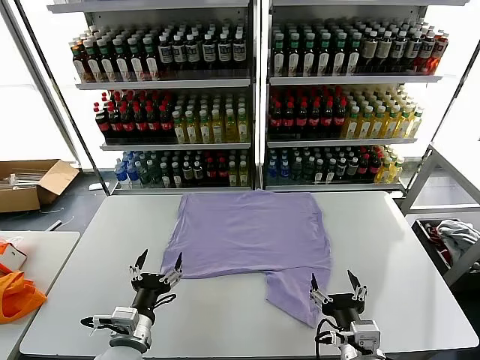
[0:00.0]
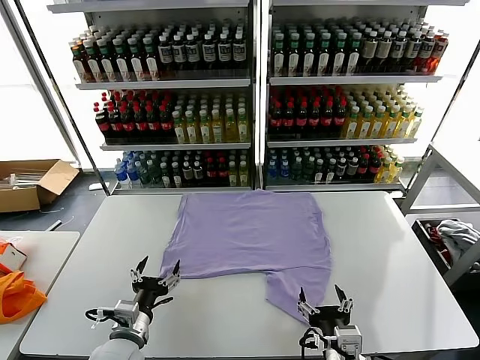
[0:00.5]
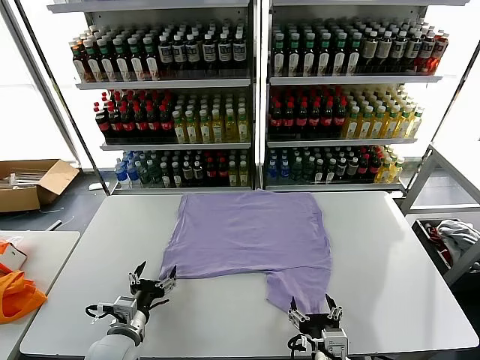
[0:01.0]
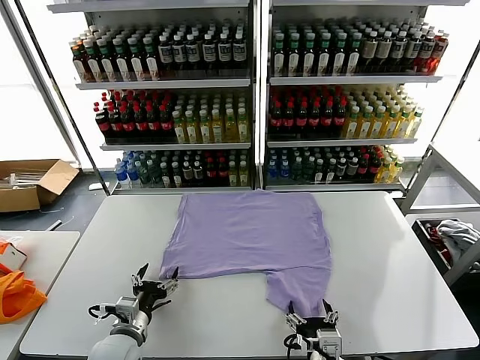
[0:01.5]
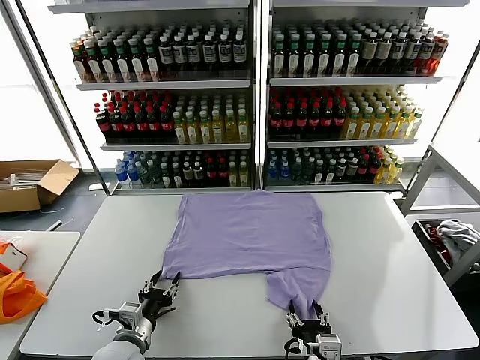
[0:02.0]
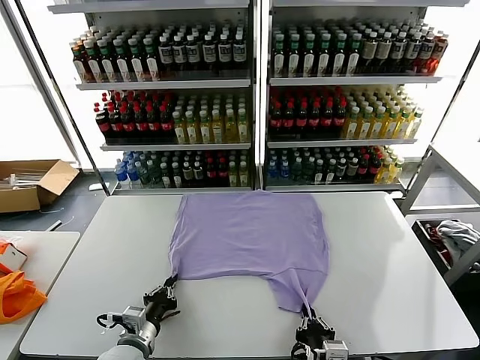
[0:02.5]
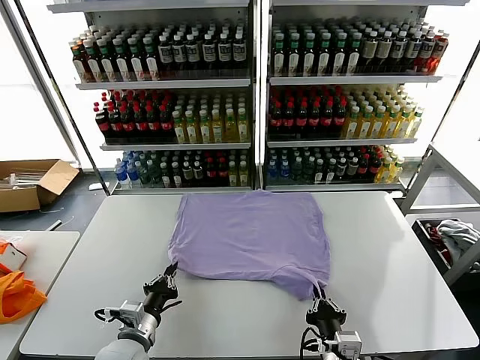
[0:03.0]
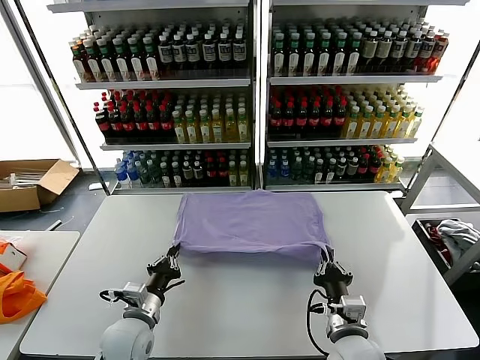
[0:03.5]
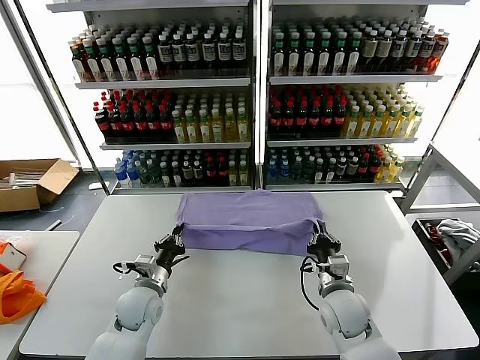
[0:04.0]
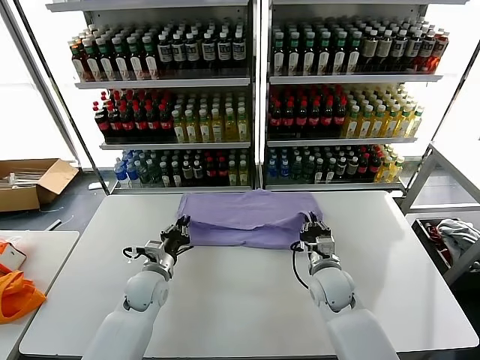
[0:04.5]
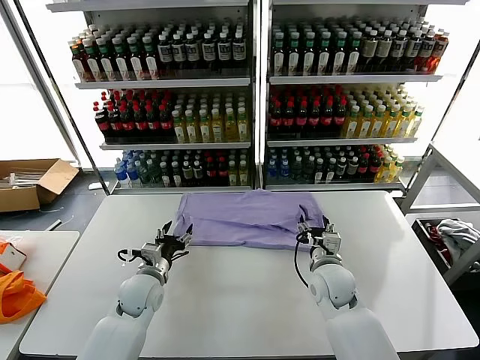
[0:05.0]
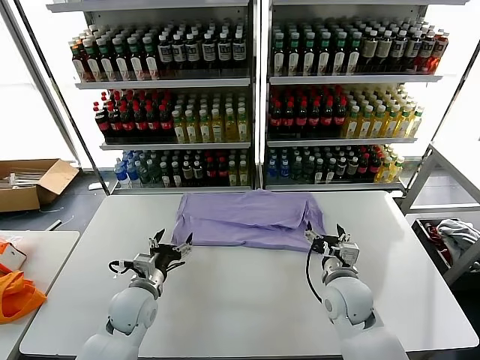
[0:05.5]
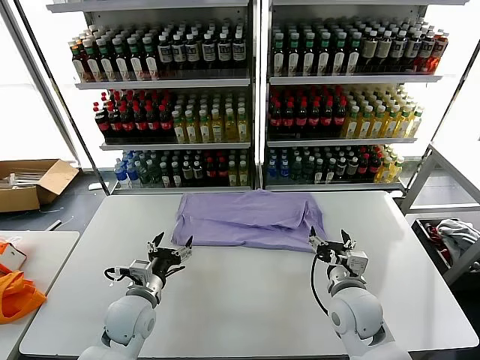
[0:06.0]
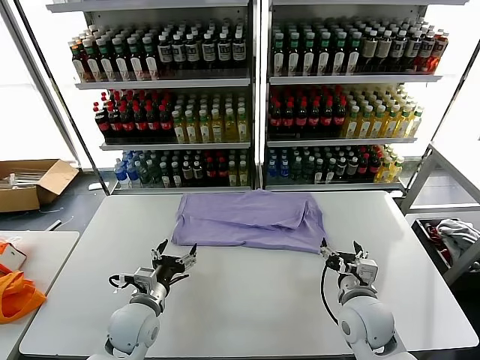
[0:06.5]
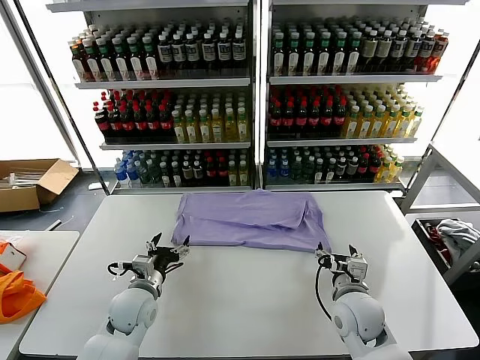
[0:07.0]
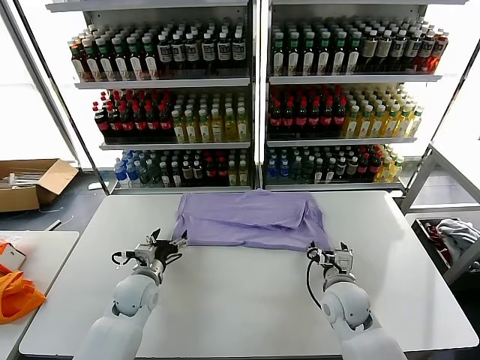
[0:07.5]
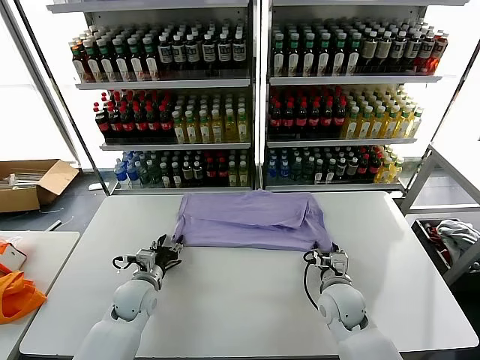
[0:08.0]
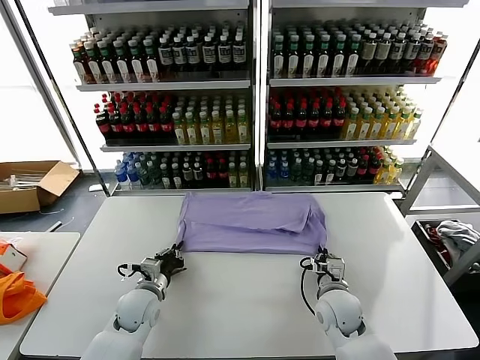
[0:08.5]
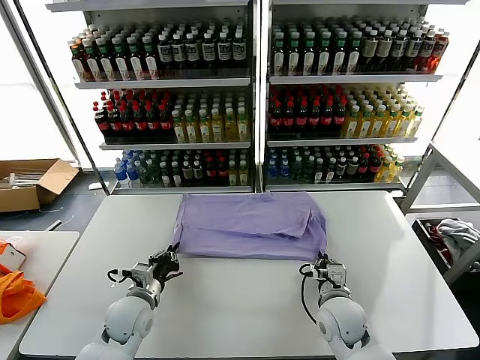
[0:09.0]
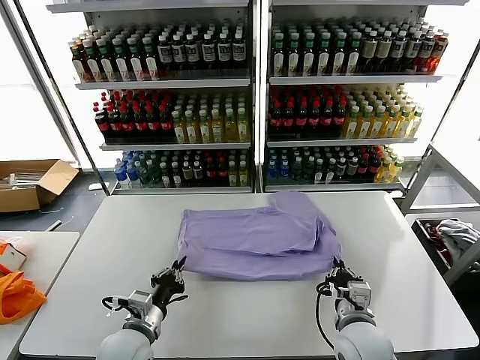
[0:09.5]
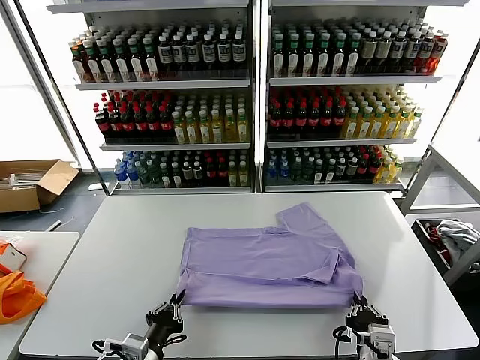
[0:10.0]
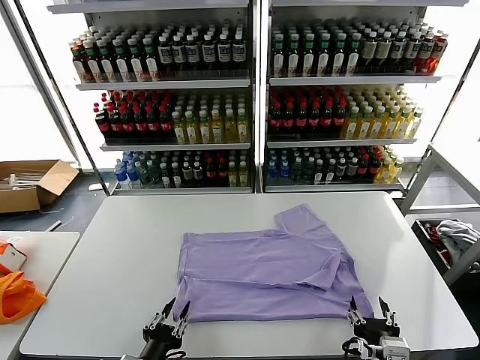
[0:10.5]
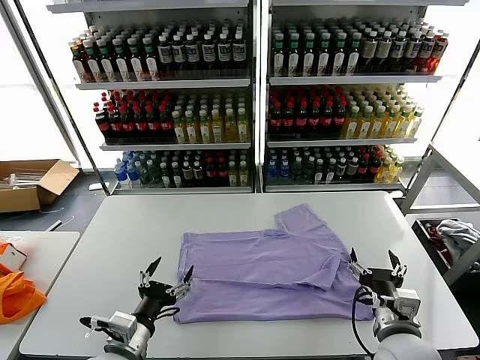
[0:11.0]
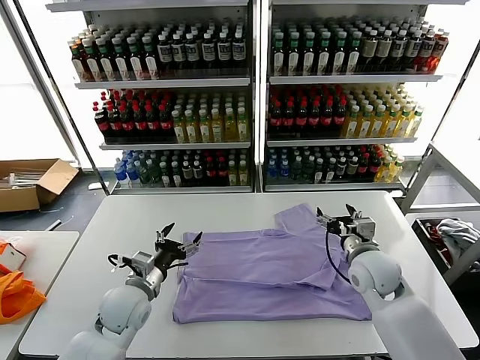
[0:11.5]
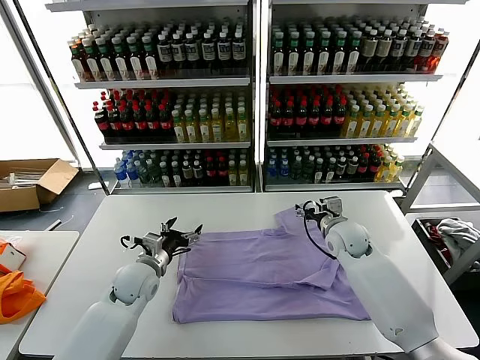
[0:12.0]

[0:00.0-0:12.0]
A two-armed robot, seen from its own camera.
Task of the whole recording: fold and organize the clothes.
Step, 0:00.0 to 0:02.5: use both grippers simultaneously to clamp the lower edge of the clothing fabric.
Step, 0:03.0 to 0:05.0: use both grippers to drag the lower edge of the fabric forward and fold it over the upper edge.
Step, 0:05.5 to 0:10.5: Drag the clothes downward with both gripper.
0:02.0 to 0:04.0: The left gripper shifts about 15 cm forward, and closes; the right gripper heads forward, covering some 20 cm, and closes.
0:04.0 to 0:06.0: The right gripper shifts about 5 cm backward, and opens up; the left gripper changes place by approximately 5 cm, and opens its fingers.
0:06.0 to 0:08.0: The left gripper goes about 5 cm forward, and closes up, while the right gripper moves downward, approximately 5 cm, and closes up.
0:08.0 to 0:10.0: Both grippers move backward, roughly 20 cm. The left gripper closes.
0:10.0 to 0:12.0: Both grippers move forward, roughly 30 cm. The right gripper opens its fingers; the left gripper opens.

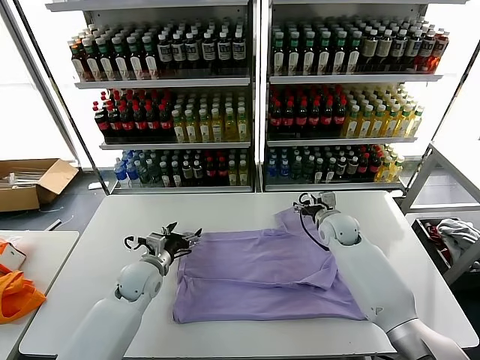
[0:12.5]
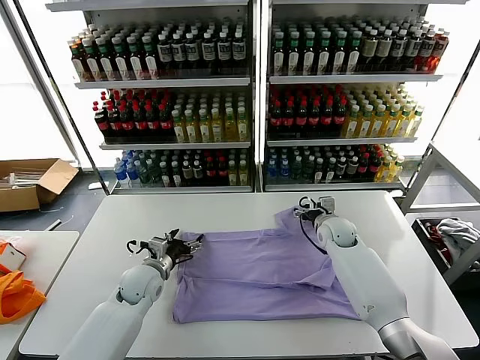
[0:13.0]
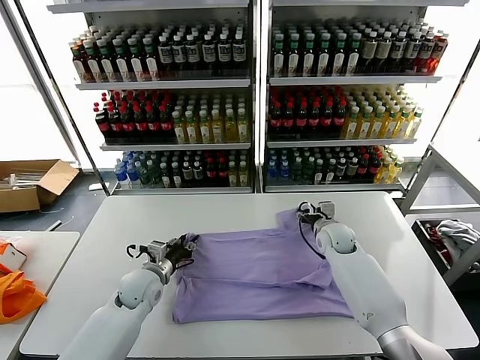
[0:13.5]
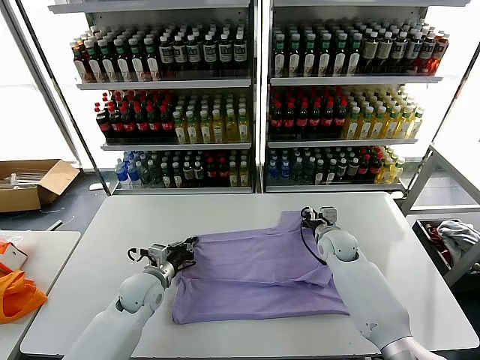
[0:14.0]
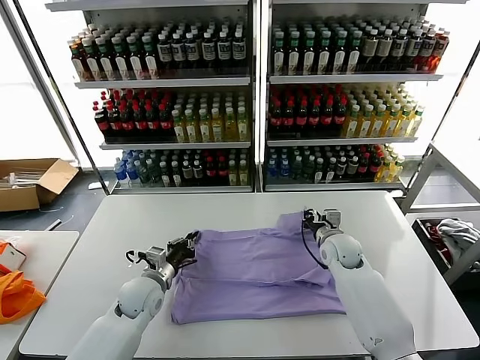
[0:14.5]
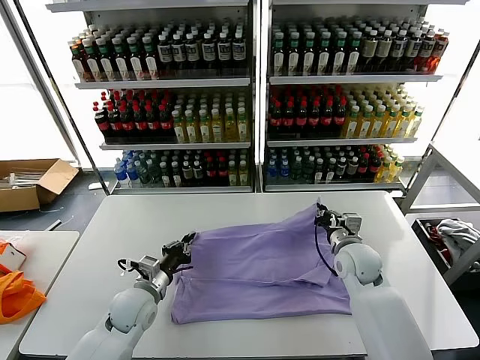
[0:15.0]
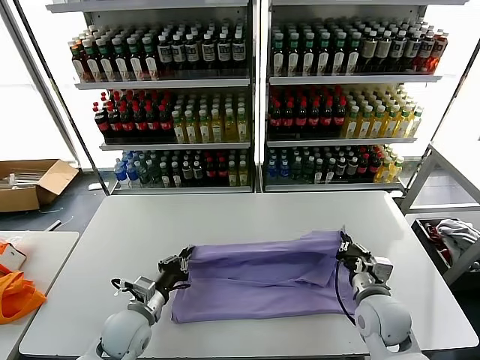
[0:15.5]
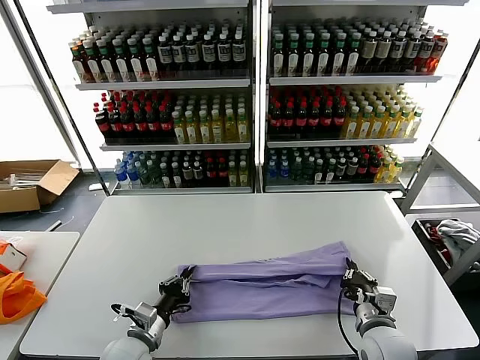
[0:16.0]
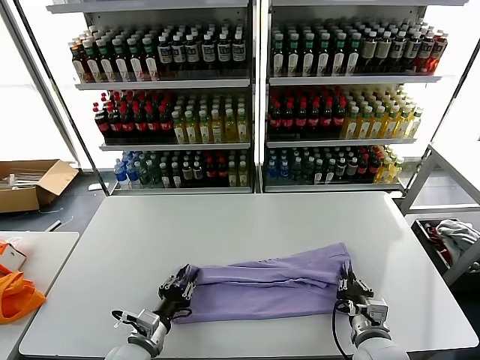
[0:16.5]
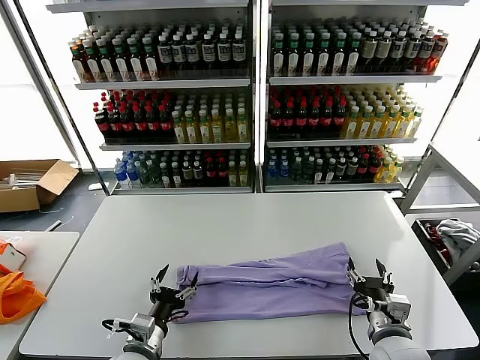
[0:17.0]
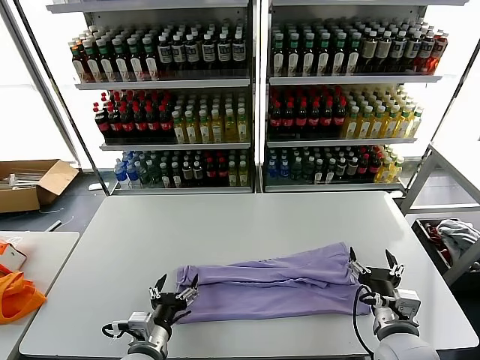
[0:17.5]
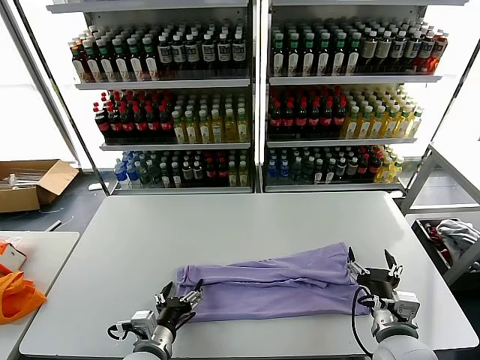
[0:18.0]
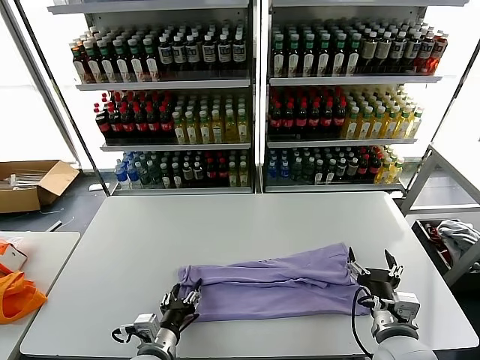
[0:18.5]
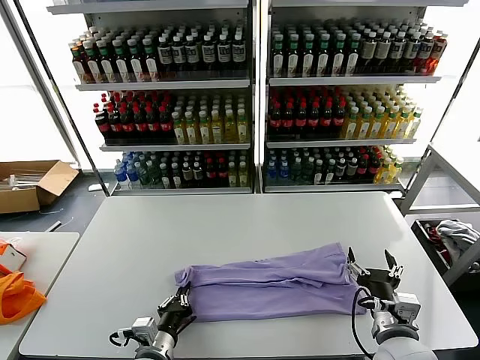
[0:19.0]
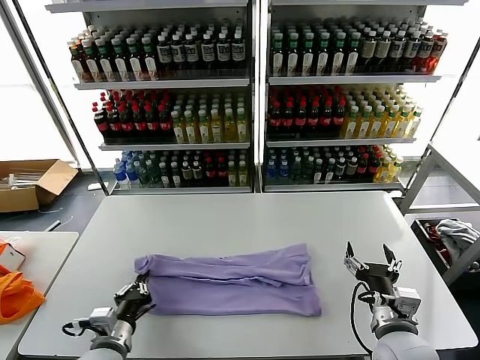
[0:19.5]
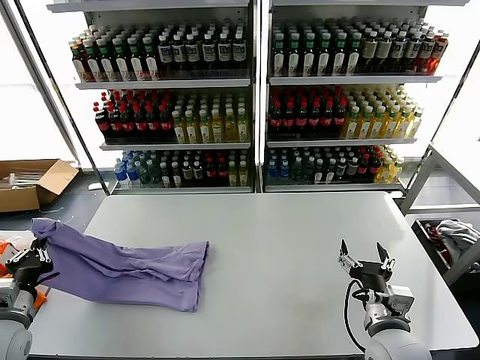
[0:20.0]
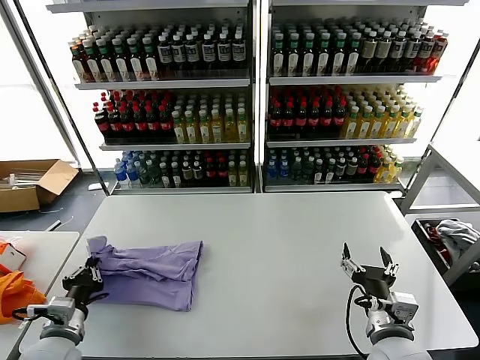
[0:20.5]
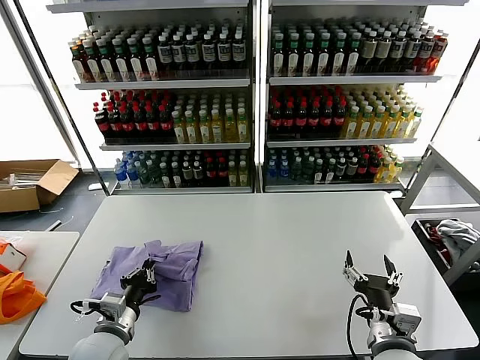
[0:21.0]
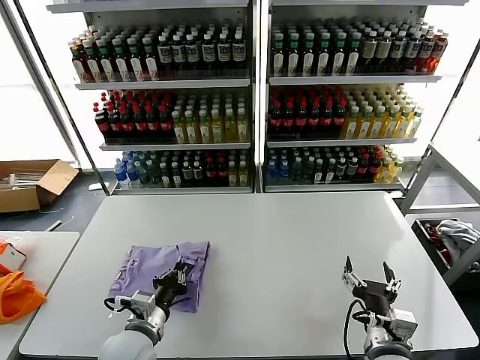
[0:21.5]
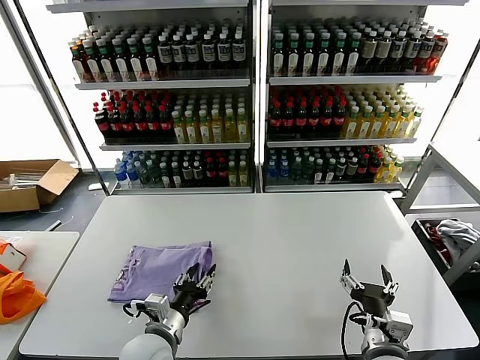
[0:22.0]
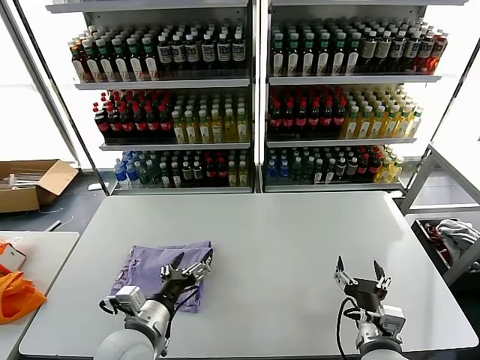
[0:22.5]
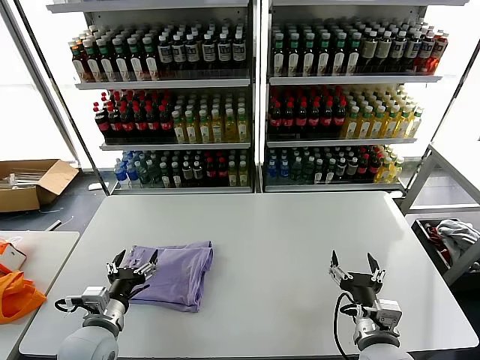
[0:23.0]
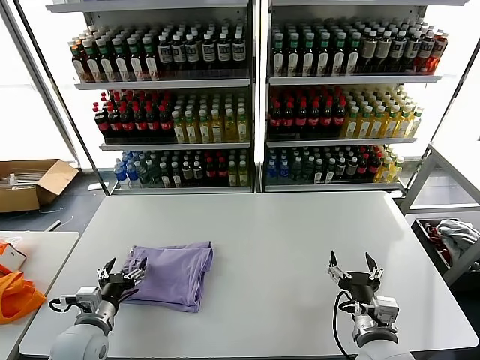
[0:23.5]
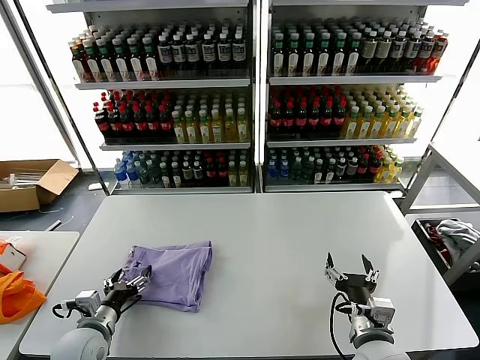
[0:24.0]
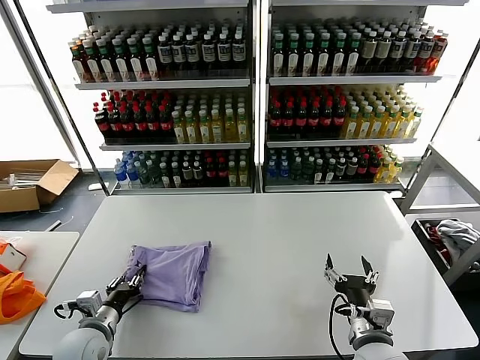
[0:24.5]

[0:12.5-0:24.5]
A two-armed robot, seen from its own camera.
Task of the whole recording: fold and organize the clothes.
Step, 0:14.5 to 0:16.5: use both grippers to drag the upper edge of the fabric backward and fold it over the lower edge.
Step, 0:17.0 to 0:19.0: use the left gripper to clamp the left edge of the fabric.
Step, 0:19.5 to 0:22.0: use the left gripper to drag the left edge of the fabric to the left and folds it over the right edge.
0:12.5 to 0:14.5: The right gripper heads backward, covering some 5 cm, and closes up; the left gripper closes.
0:14.5 to 0:16.5: The right gripper moves backward, some 25 cm, while the left gripper is displaced backward by about 15 cm, and opens up.
0:16.5 to 0:18.5: The left gripper moves approximately 5 cm, while the right gripper travels upward by about 5 cm, and opens up.
0:18.5 to 0:20.5: The left gripper travels to the left by about 15 cm, and closes up.
0:20.5 to 0:22.5: The left gripper travels to the right by roughly 15 cm, and opens up.
0:22.5 to 0:24.5: The left gripper moves to the left and downward, about 15 cm, and closes.

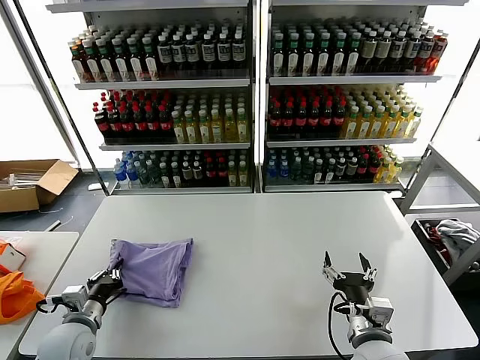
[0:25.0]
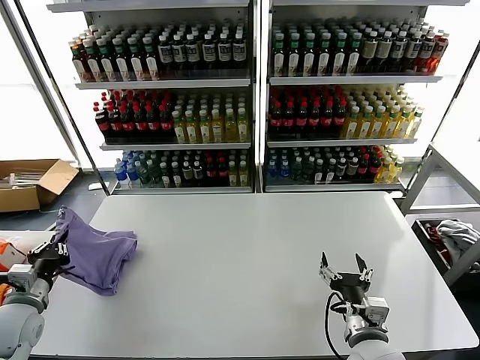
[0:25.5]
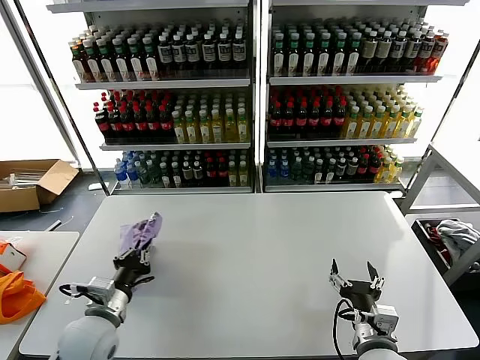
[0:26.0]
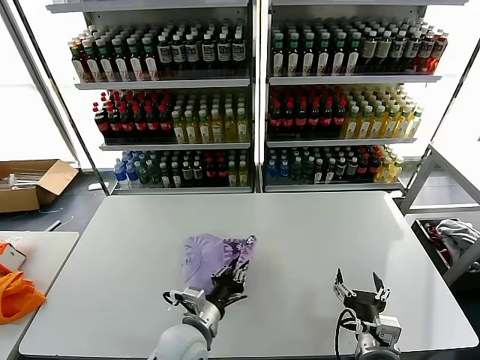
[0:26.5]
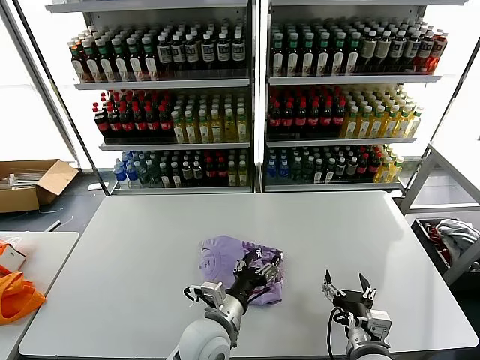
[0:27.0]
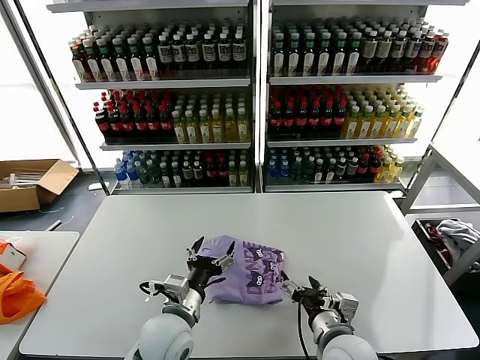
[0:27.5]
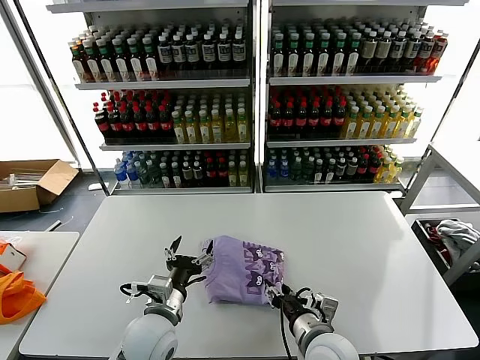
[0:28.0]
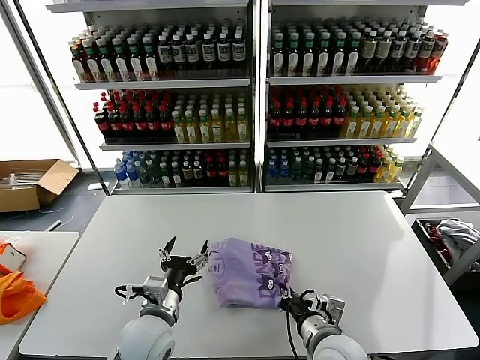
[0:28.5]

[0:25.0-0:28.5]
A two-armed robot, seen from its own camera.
Task of the whole recording: fold and organize the clothes.
0:25.0 to 0:27.0: The left gripper shifts approximately 30 cm to the right, and opens its fingers.
0:27.0 to 0:28.5: The left gripper travels to the left by about 10 cm, while the right gripper moves to the left, approximately 5 cm, and closes its fingers.
